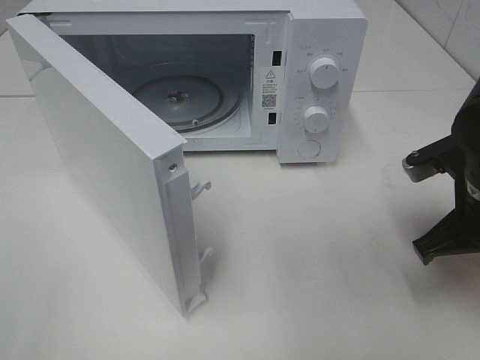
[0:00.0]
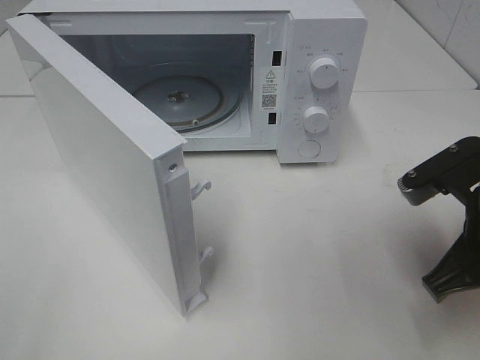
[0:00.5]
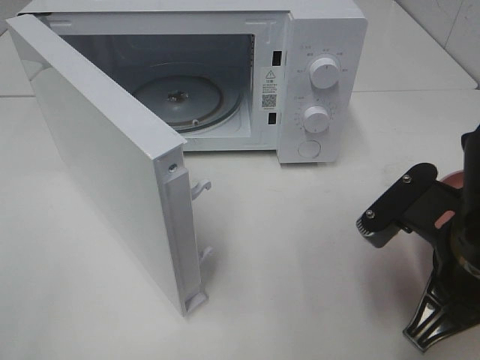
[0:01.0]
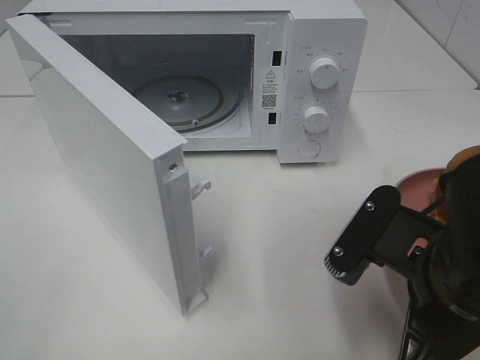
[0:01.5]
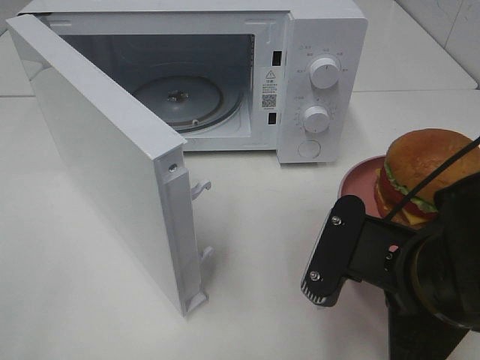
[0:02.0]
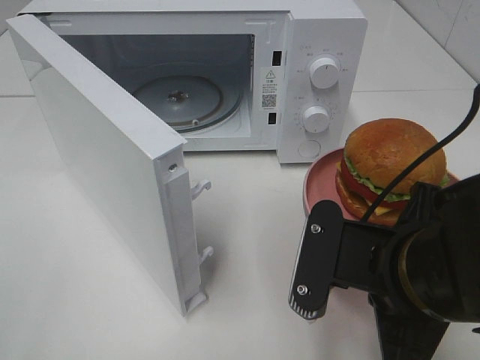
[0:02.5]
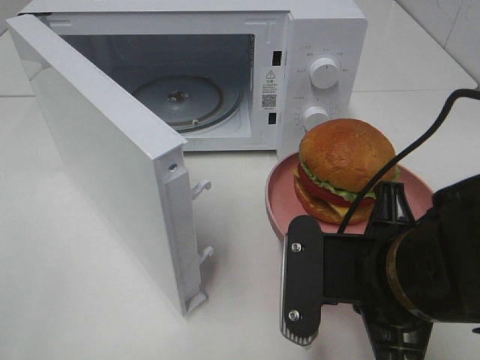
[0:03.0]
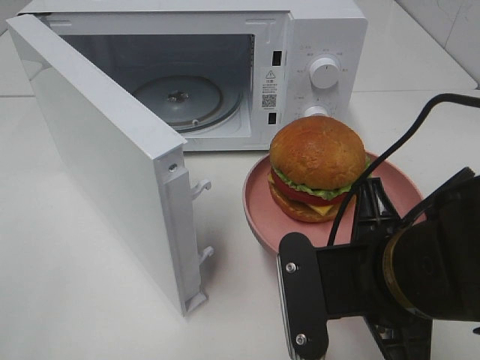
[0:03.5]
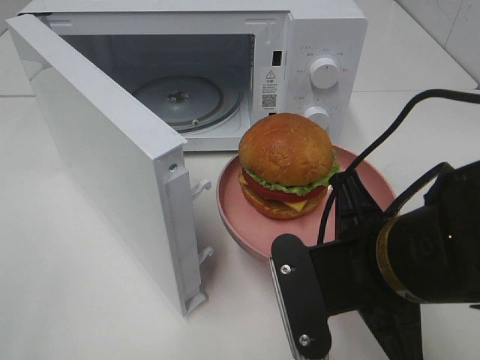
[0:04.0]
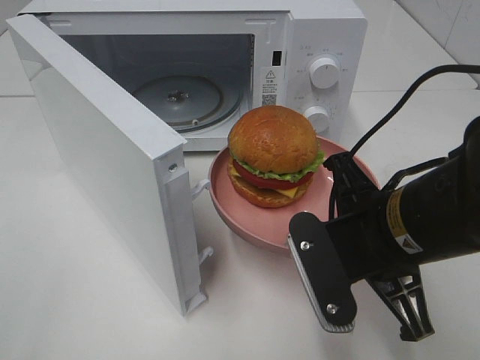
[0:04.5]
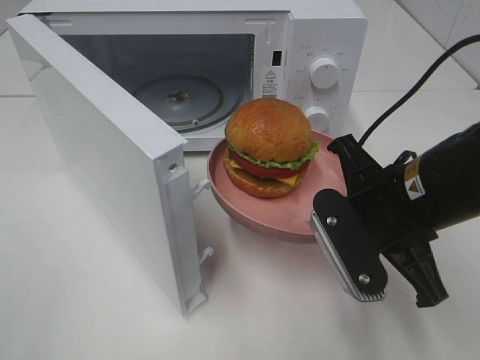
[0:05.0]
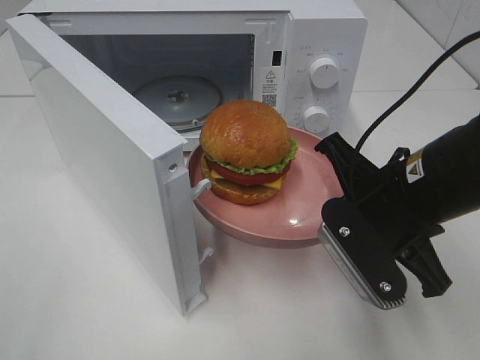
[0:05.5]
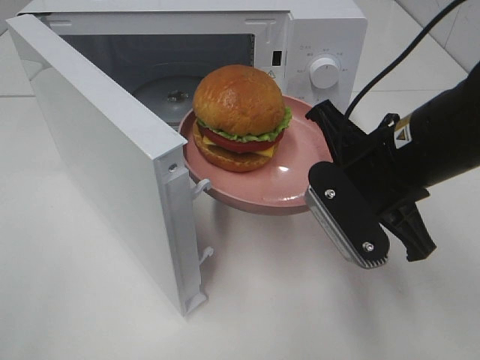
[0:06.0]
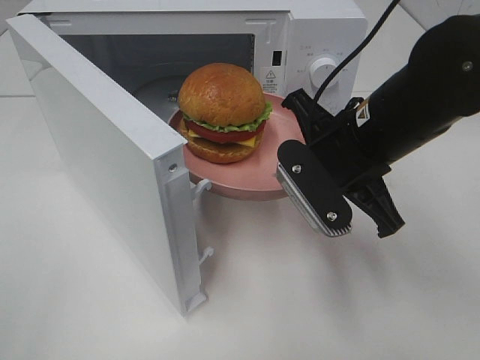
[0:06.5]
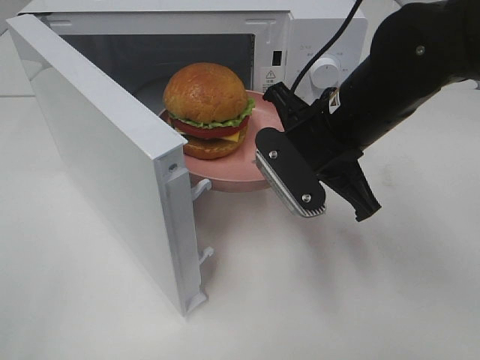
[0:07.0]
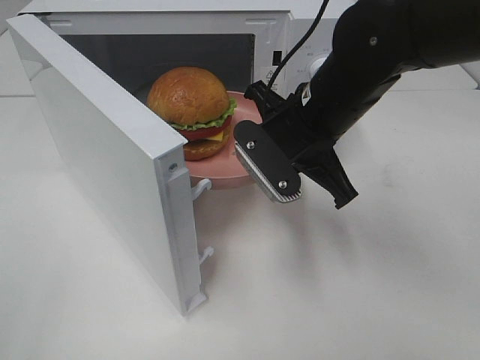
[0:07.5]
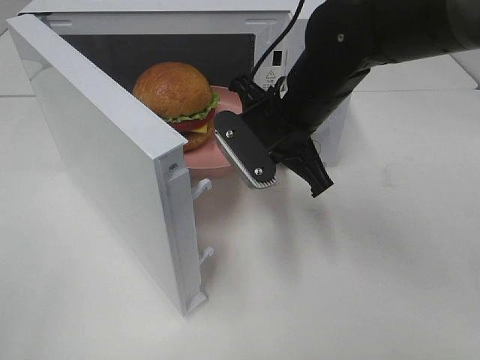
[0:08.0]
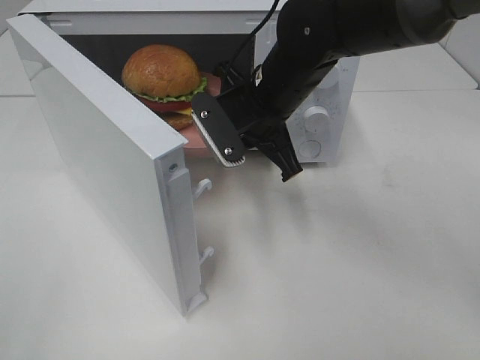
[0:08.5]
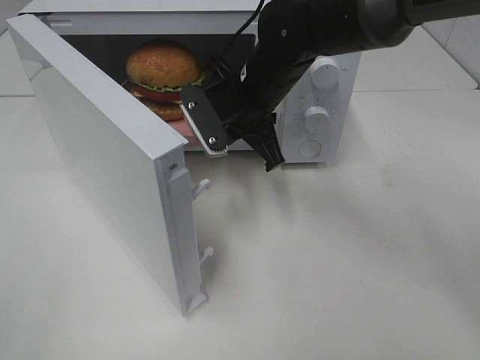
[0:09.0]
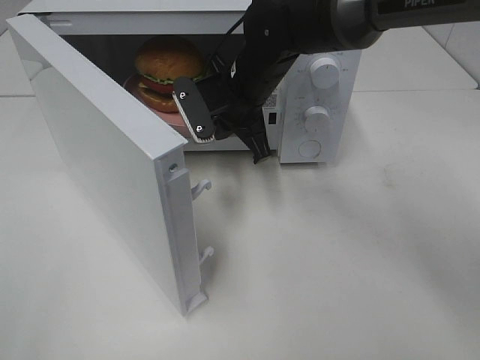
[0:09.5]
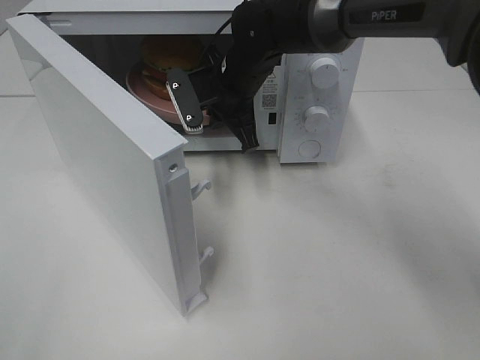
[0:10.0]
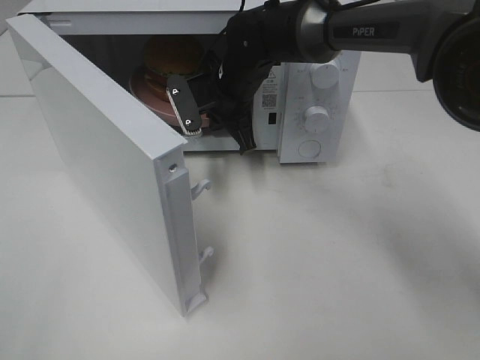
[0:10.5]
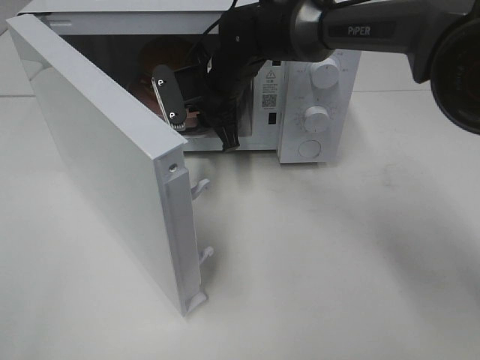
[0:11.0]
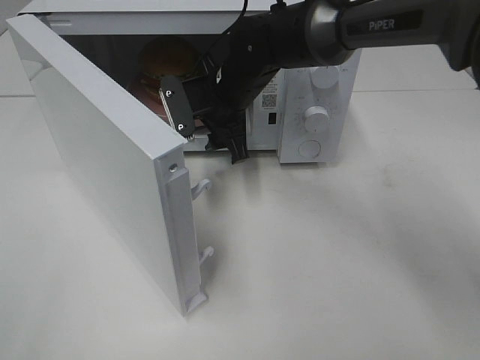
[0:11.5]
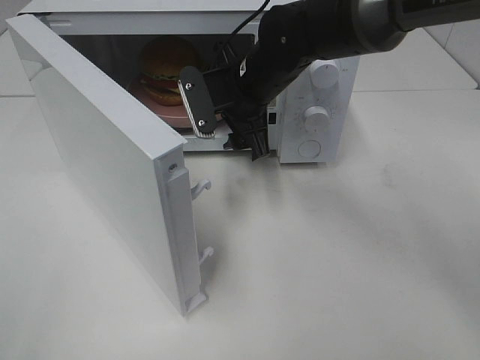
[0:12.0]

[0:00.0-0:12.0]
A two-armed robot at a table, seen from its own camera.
Task of the whole recording: Heat the burger.
Step, 0:00.0 to 0:10.5: Right hand: place the plate in the microwave.
0:00.0 to 0:02.0: The right gripper goes some 15 cm backward and to the left.
0:04.0 to 0:06.0: The right gripper is displaced forward by some 10 cm.
0:06.0 to 0:08.0: The right gripper is displaced forward and to the left by roughly 10 cm.
0:08.0 to 0:10.0: The right gripper shifts approximately 10 cm forward and to the left.
0:10.0 to 0:12.0: The right gripper opens up.

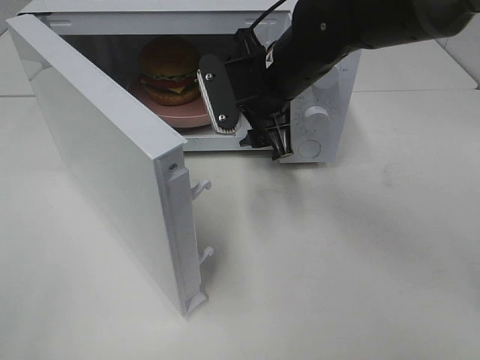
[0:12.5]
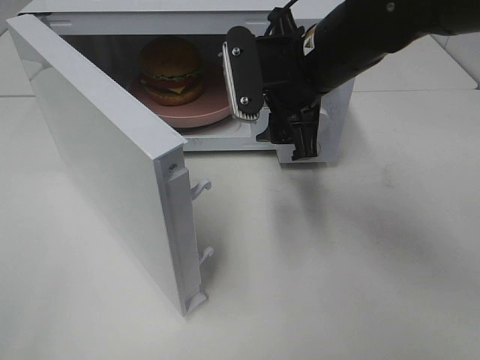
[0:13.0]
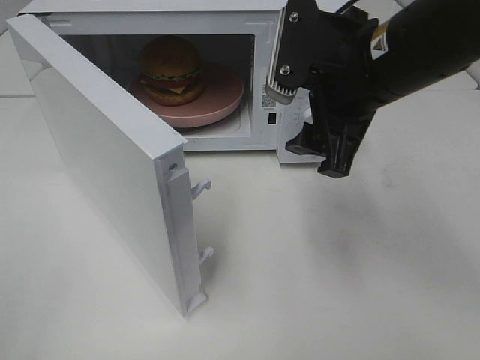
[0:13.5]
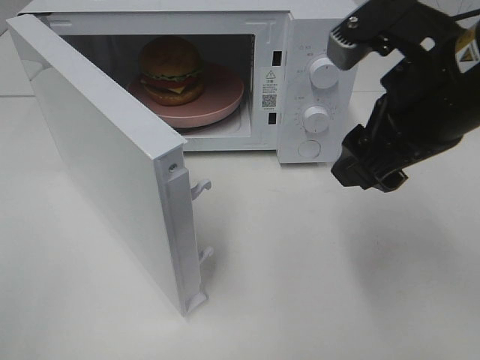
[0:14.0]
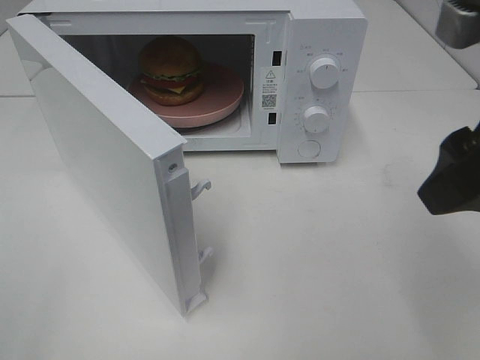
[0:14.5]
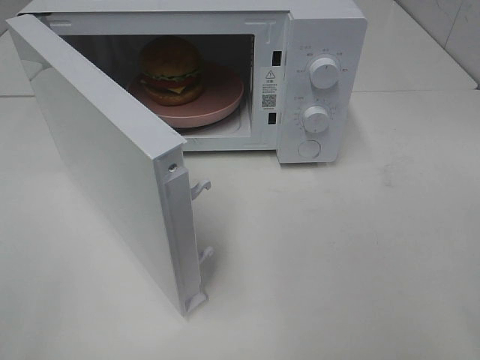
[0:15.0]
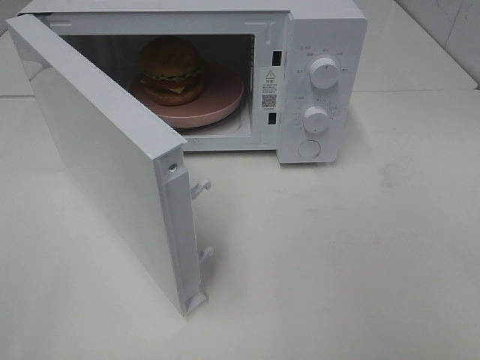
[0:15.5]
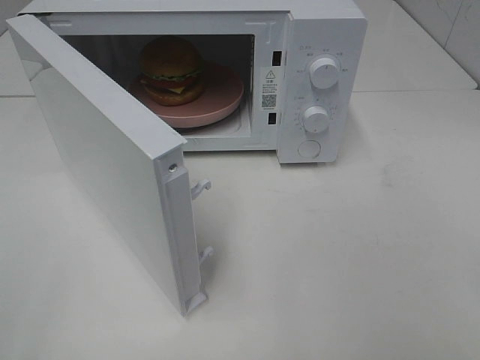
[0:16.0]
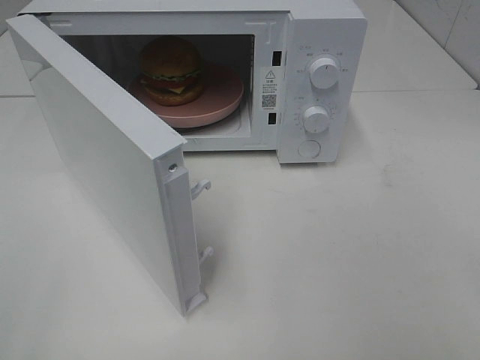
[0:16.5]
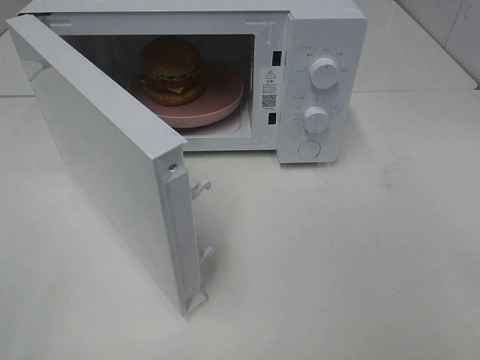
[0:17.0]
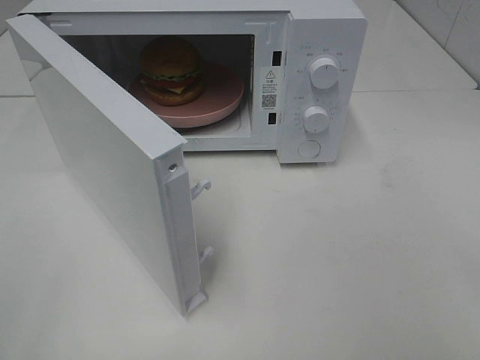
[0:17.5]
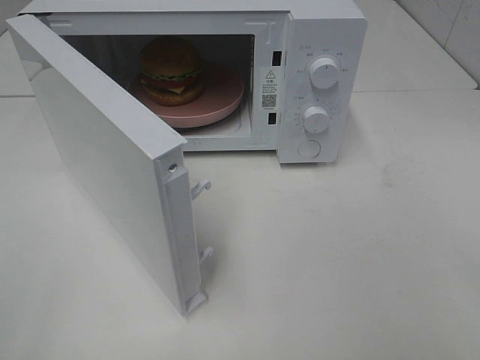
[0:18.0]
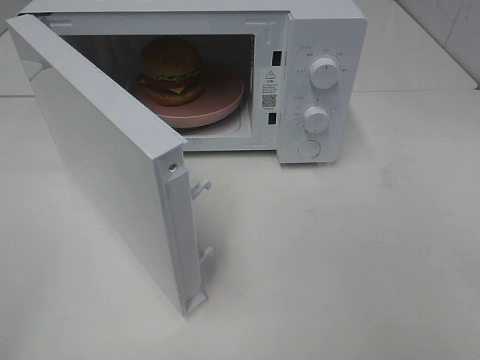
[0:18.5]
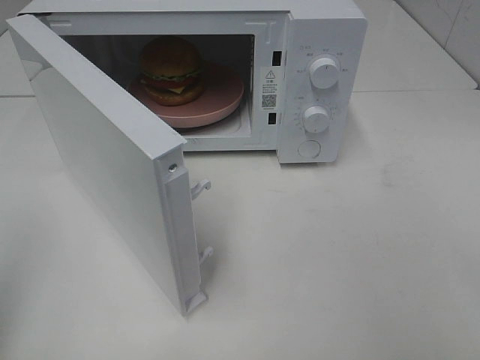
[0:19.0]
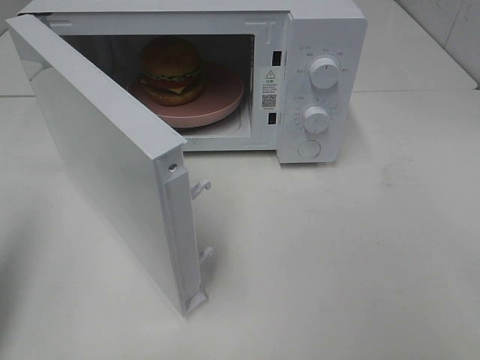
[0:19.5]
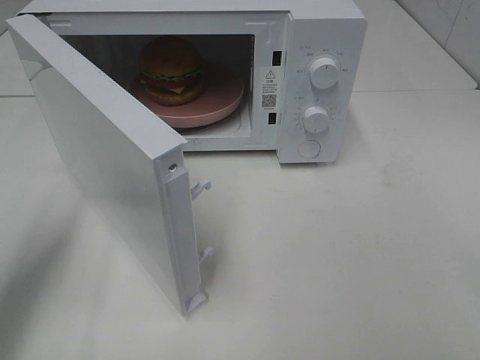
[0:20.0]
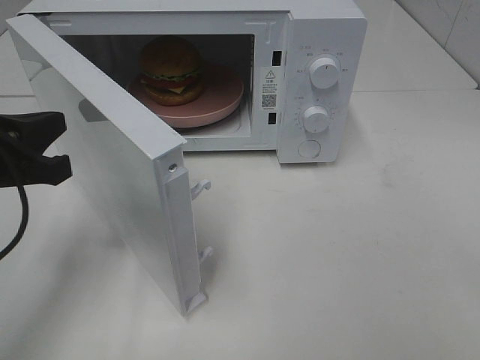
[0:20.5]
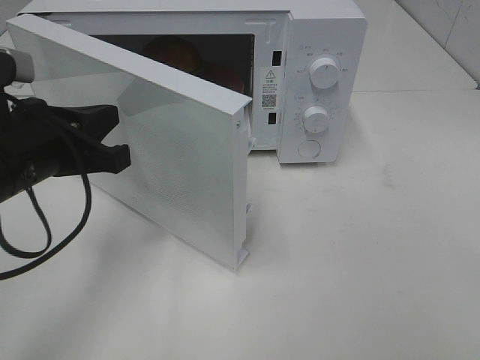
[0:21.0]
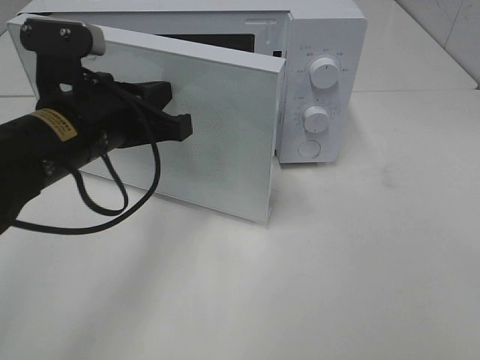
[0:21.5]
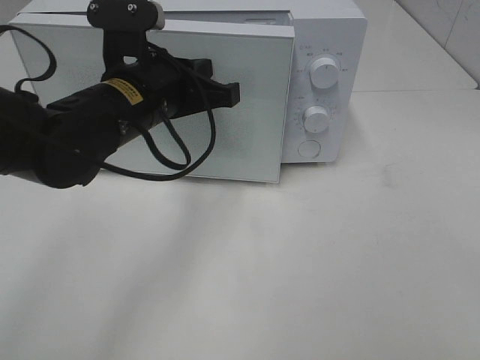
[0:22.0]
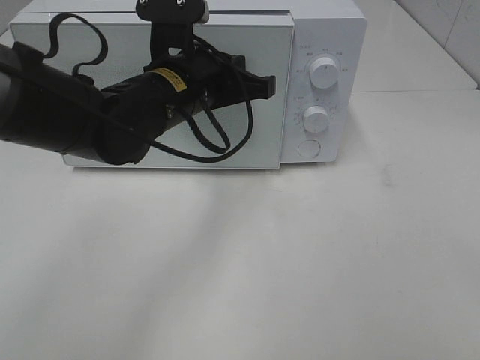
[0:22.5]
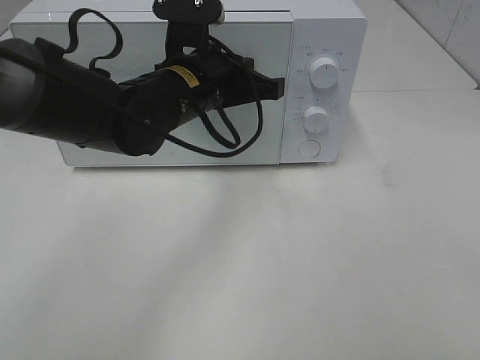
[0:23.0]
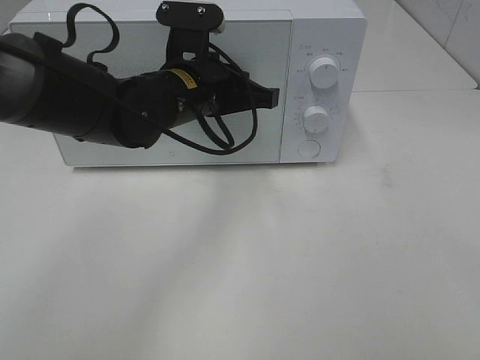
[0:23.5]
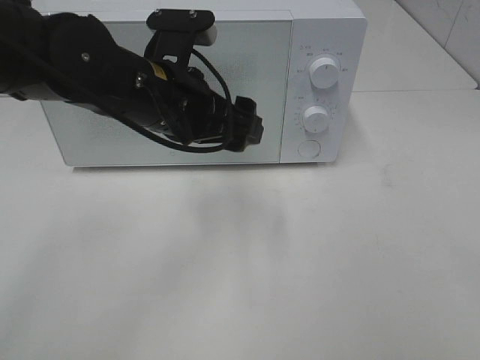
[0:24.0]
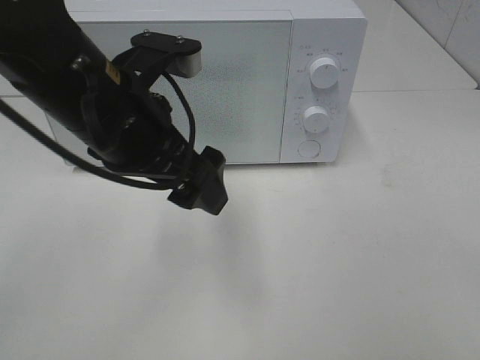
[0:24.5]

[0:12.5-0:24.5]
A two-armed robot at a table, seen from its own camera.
Task of the whole recording: Heat the burger.
Step, 0:12.5 to 0:23.5: Left hand: close the microwave door.
0:12.5 to 0:14.5: The right gripper goes about 25 cm backward, to the right and upward.
0:14.5 to 0:16.5: The right gripper moves backward and to the right, roughly 20 cm.
0:18.5 to 0:20.5: The left gripper heads forward, downward and to the right, covering about 25 cm, and closes.
0:20.5 to 0:22.5: The left gripper shifts approximately 20 cm to the right and forward.
0:22.5 to 0:24.5: The left gripper travels backward and upward by some 10 cm, and opens its fingers.

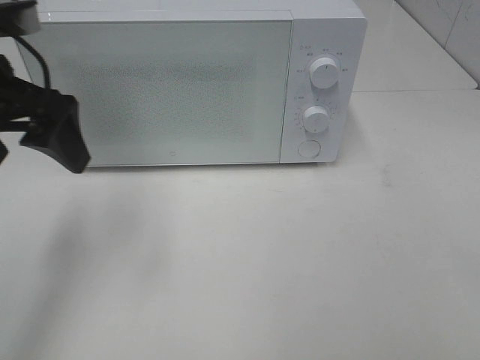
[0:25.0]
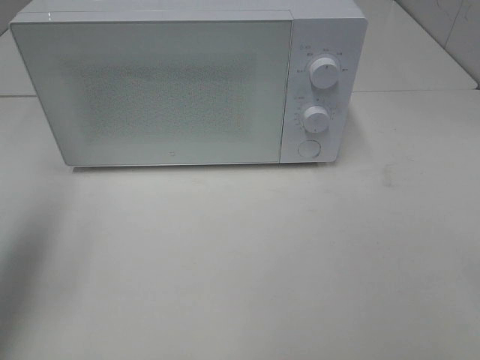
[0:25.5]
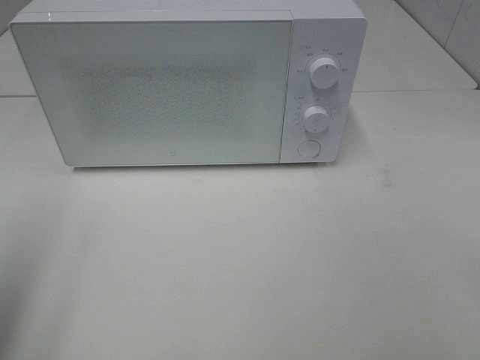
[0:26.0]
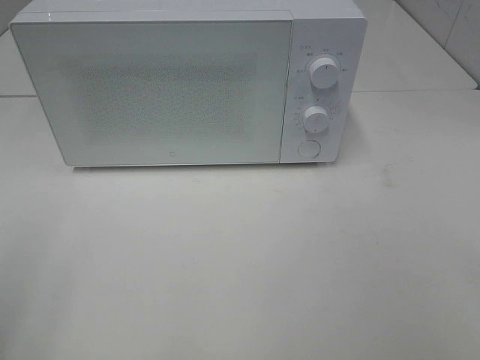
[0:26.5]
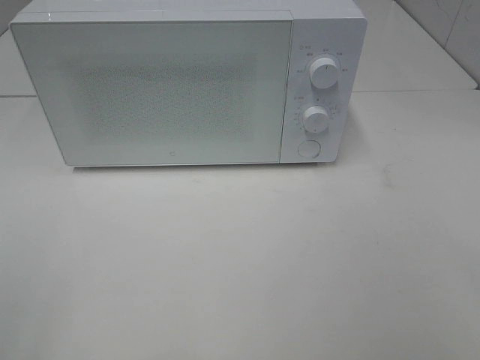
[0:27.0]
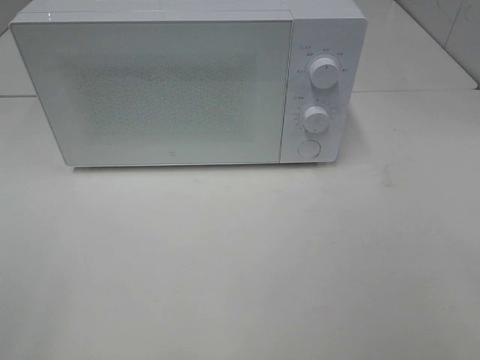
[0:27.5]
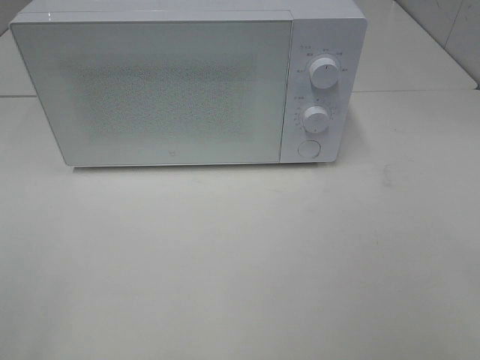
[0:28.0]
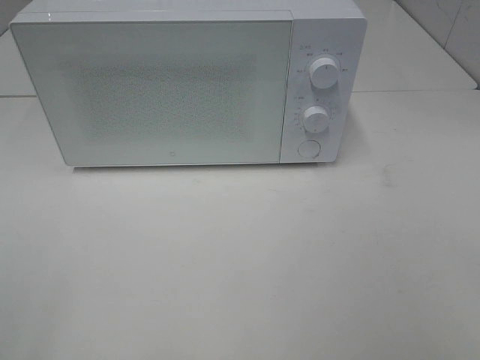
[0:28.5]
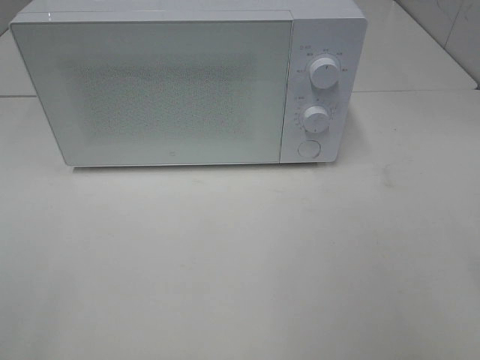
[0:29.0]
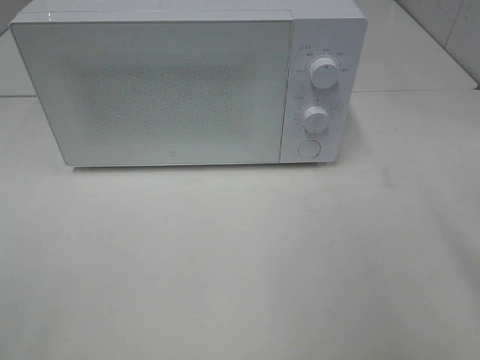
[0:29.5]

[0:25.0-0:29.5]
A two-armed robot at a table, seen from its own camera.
Task of the whole recording: Heat the burger.
0:25.0 to 0:27.0: The left gripper heads backward, covering about 25 cm.
